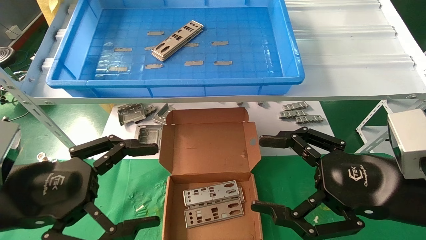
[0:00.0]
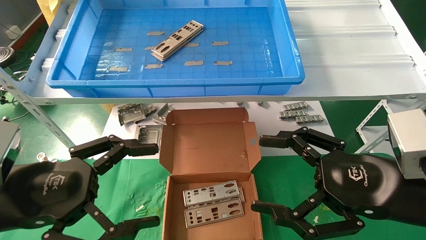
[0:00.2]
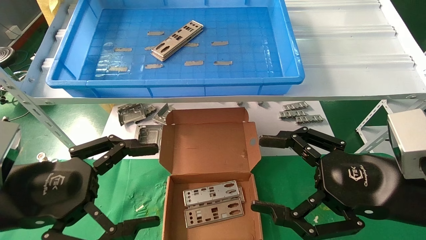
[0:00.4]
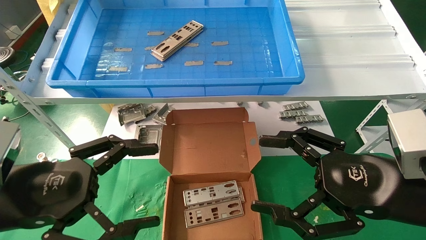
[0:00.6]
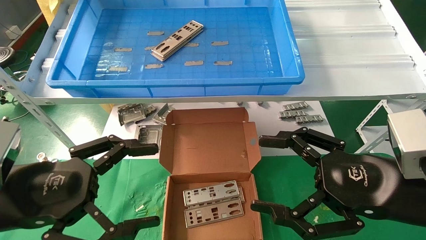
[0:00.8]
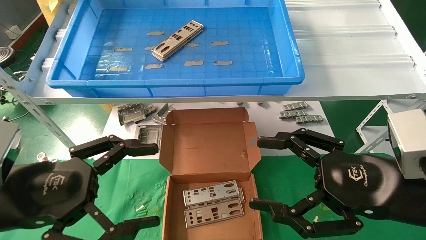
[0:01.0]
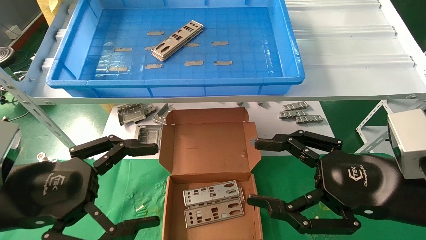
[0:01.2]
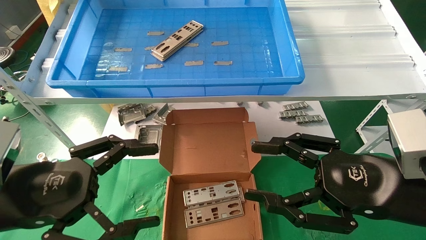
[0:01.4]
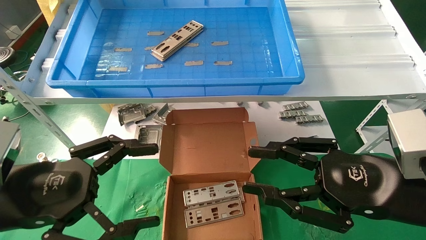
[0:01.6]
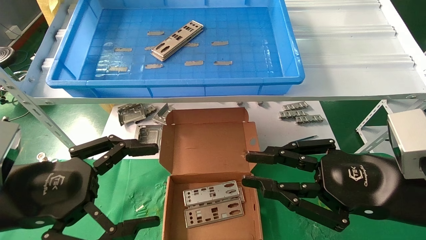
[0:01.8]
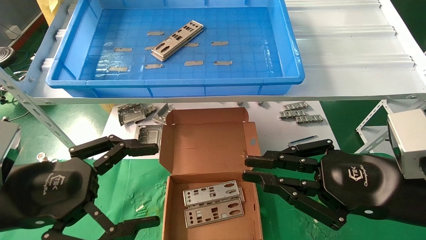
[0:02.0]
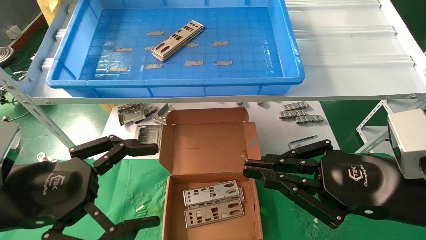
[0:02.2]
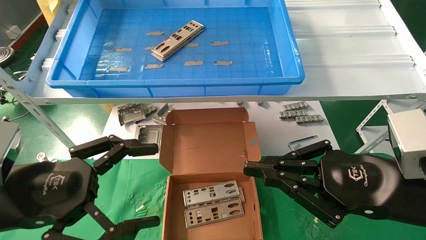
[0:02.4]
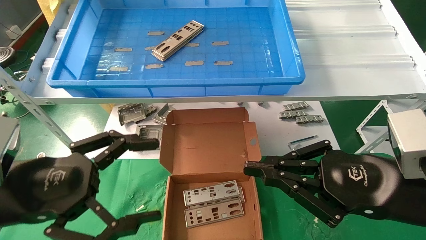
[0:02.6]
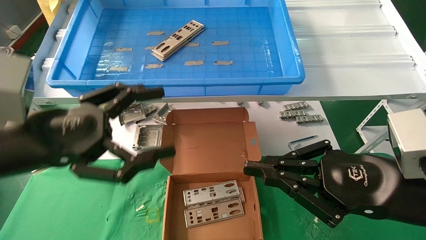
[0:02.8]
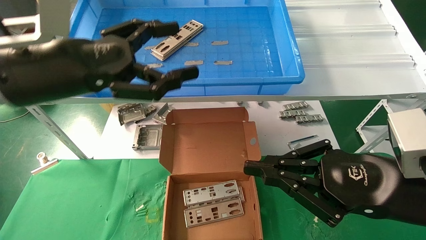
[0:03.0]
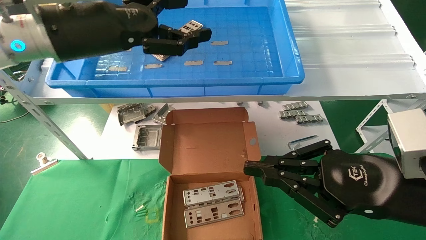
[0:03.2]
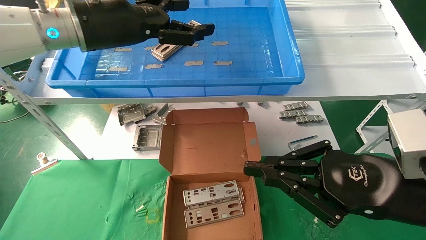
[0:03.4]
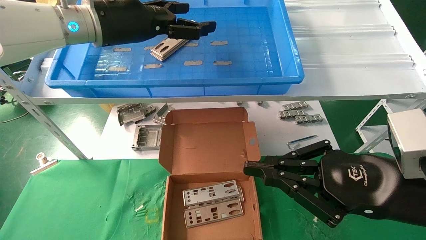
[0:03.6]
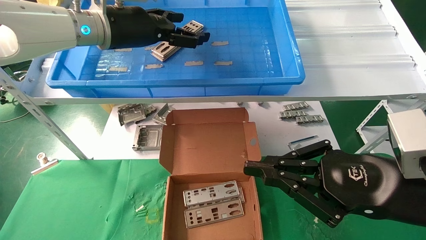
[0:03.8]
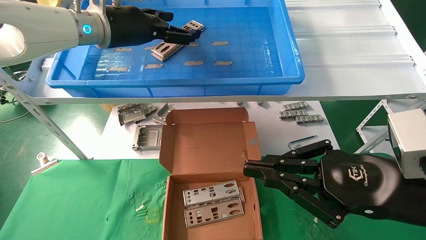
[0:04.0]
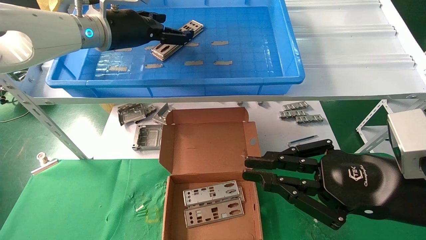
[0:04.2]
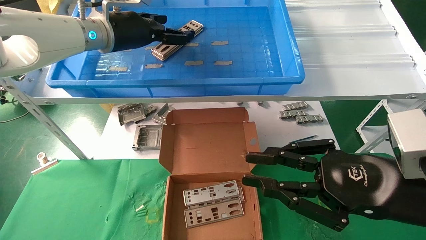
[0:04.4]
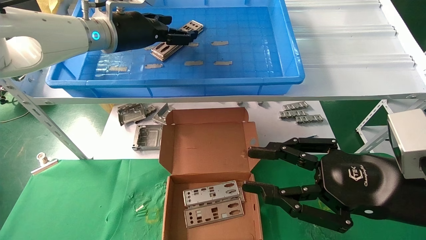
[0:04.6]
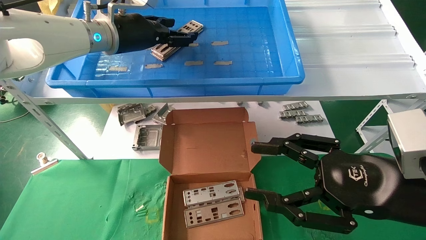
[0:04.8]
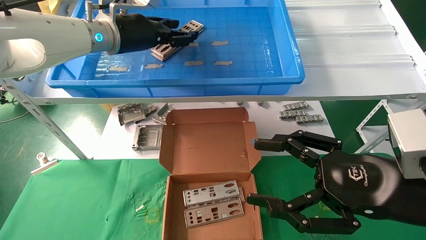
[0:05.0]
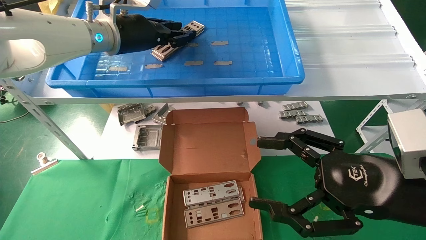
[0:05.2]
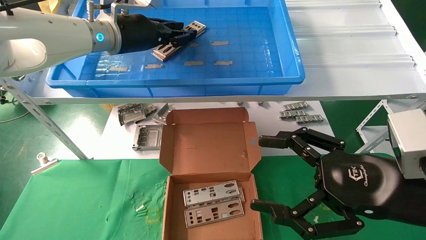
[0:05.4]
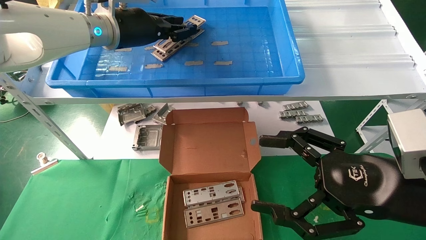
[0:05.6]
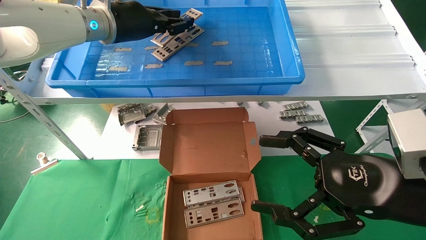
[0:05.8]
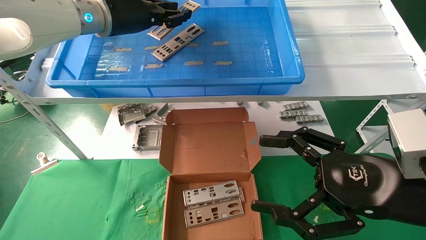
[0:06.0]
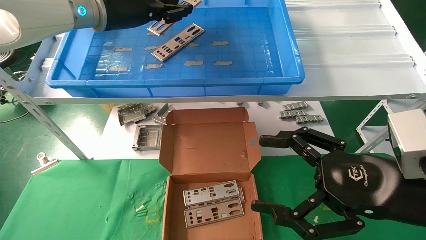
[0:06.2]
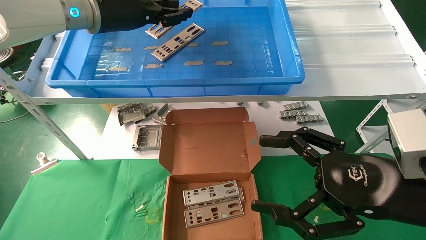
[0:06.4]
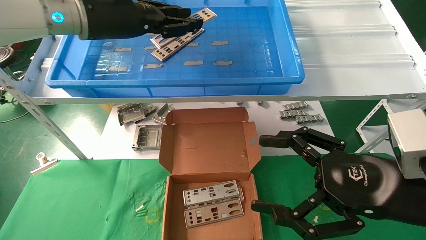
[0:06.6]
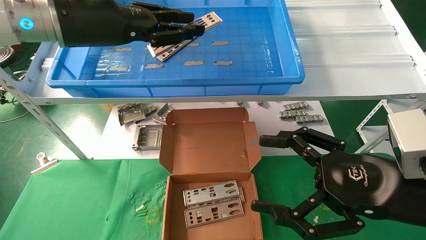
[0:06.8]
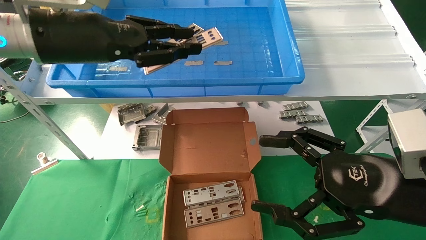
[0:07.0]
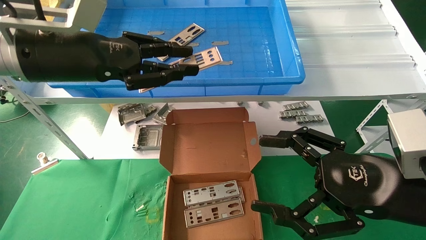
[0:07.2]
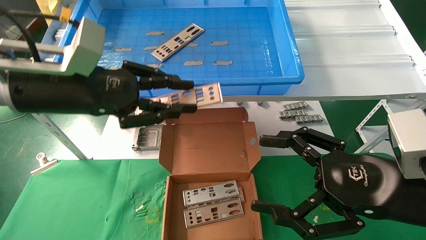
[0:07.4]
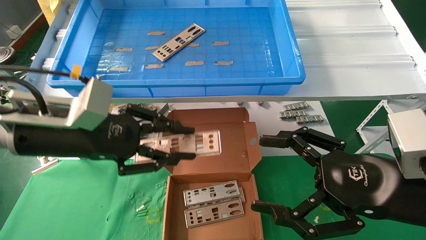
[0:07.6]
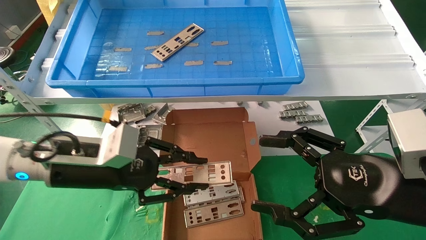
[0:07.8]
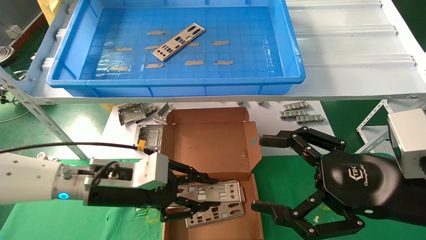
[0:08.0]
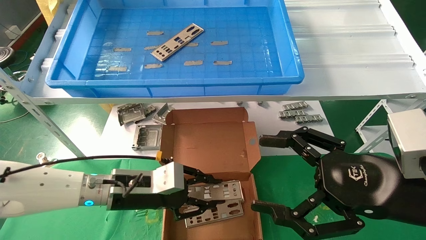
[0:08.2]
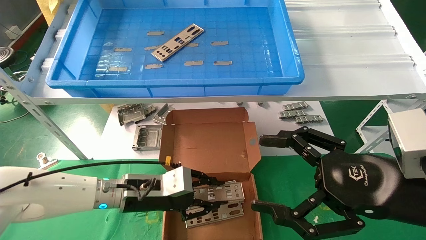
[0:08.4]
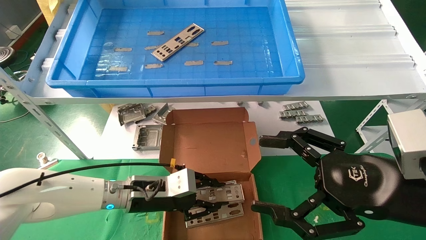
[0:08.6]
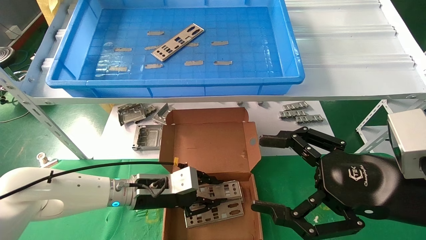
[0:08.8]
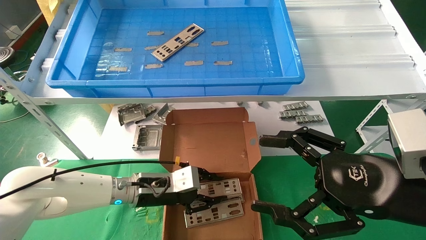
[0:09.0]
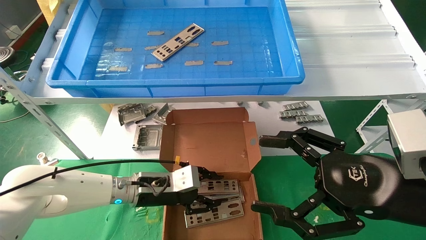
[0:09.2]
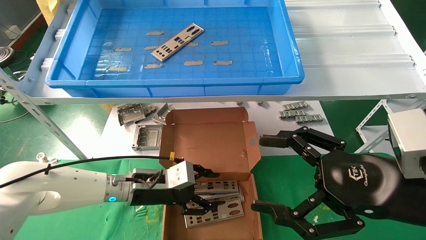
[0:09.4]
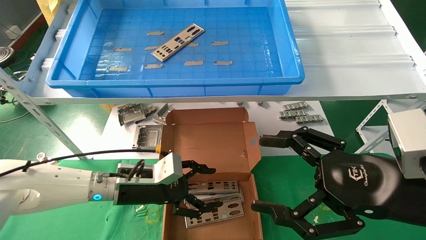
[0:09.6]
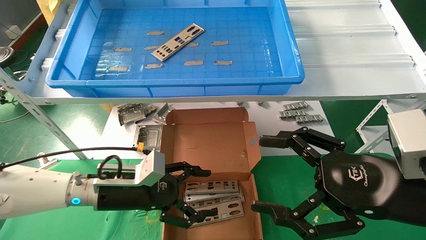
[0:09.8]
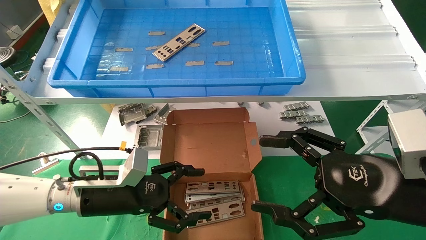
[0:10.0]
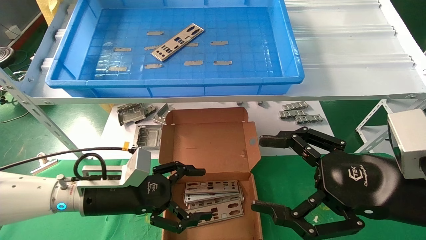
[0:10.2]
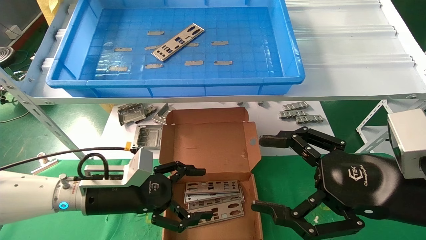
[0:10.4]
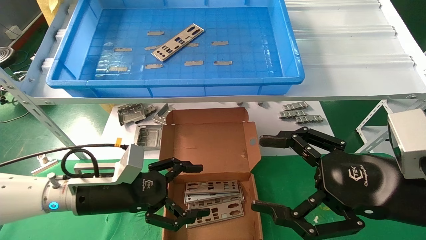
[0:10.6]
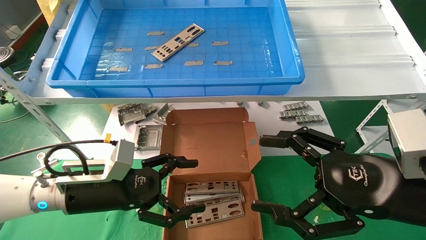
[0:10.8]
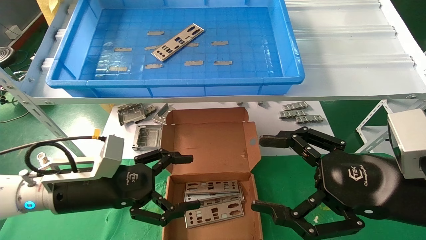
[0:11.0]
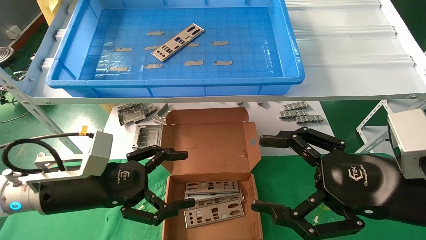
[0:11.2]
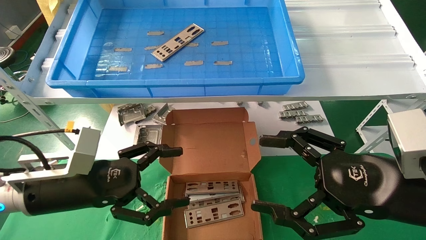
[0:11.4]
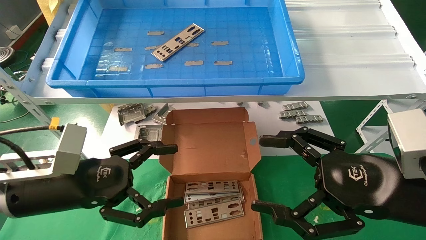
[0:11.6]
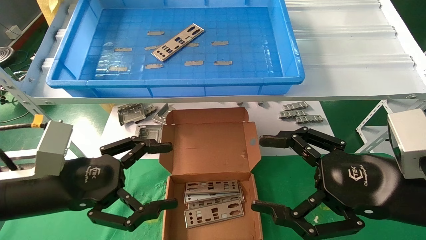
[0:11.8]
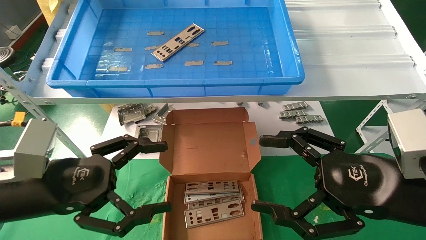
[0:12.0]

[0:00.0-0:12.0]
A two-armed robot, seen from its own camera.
Task of the whole recording: pick up the parts on the tray and put them in the cardboard box.
Step, 0:03.0 to 0:05.2: Pick up the IO bracket from the container box.
Step, 0:05.4 to 0:09.2: Place the IO bracket into the ingredient slot.
0:00.0 to 0:01.6: The right gripper closes.
0:01.6 to 0:03.0: The right gripper closes. The left gripper moves upward and forward, some 15 cm.
0:03.0 to 0:04.4: The left gripper goes approximately 15 cm forward and upward.
0:04.4 to 0:06.0: The right gripper opens. Meanwhile the left gripper closes.
0:06.0 to 0:07.6: The left gripper travels downward and backward by approximately 20 cm.
0:07.6 to 0:09.0: The left gripper travels downward, forward and to the right by some 20 cm.
0:09.0 to 0:10.4: The left gripper travels backward and to the left by approximately 10 cm, and opens.
0:10.4 to 0:12.0: The left gripper heads backward, upward and to the left, covering roughly 15 cm.

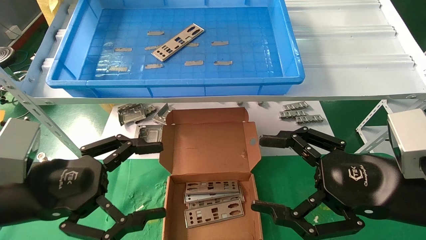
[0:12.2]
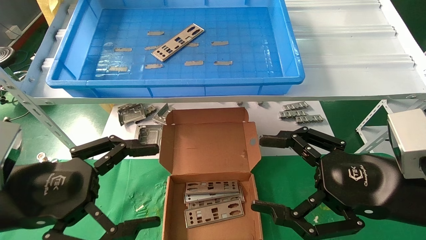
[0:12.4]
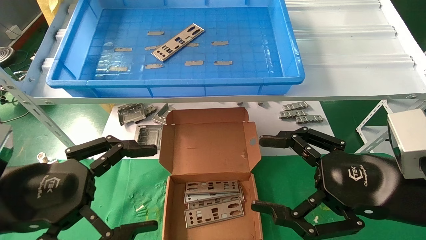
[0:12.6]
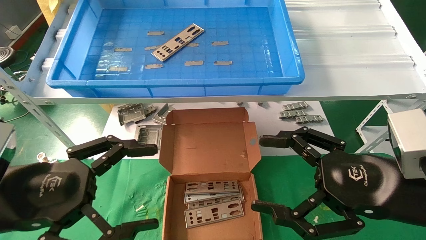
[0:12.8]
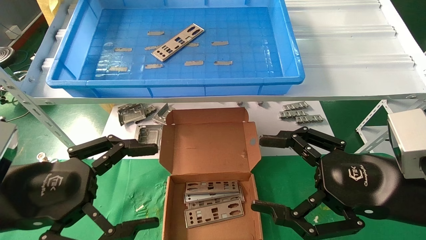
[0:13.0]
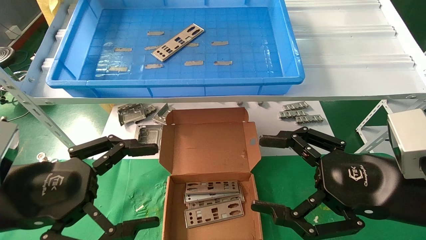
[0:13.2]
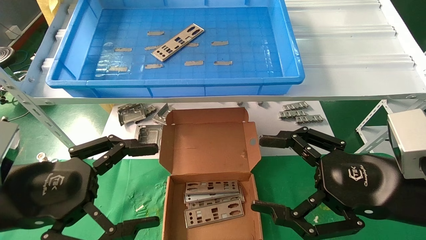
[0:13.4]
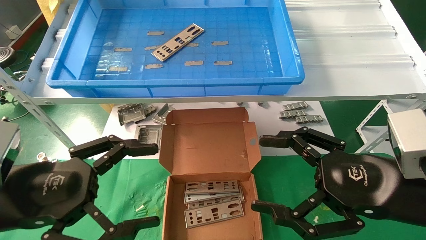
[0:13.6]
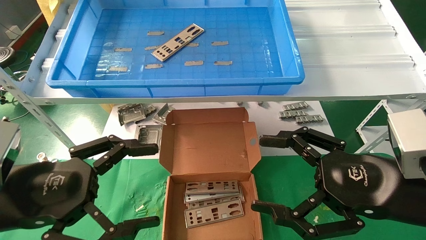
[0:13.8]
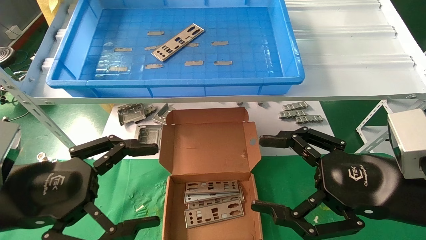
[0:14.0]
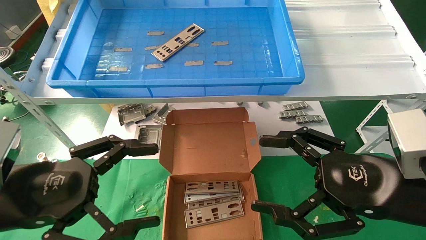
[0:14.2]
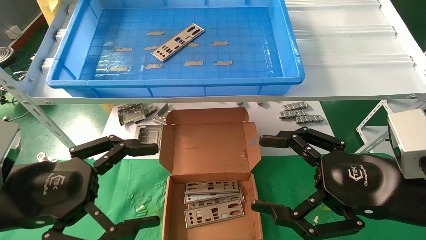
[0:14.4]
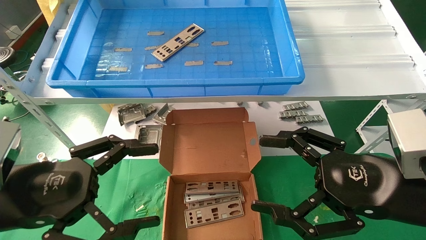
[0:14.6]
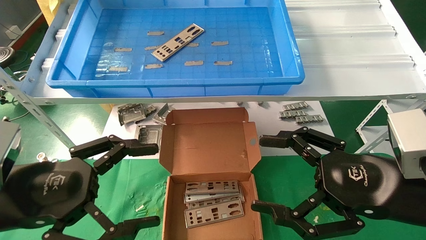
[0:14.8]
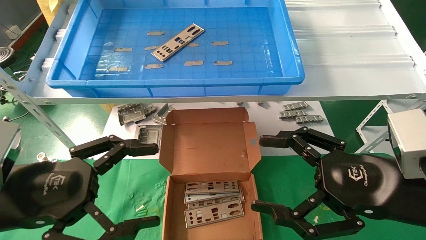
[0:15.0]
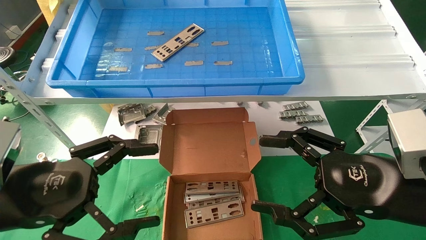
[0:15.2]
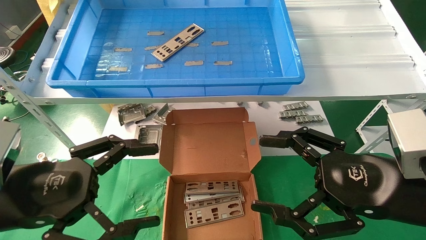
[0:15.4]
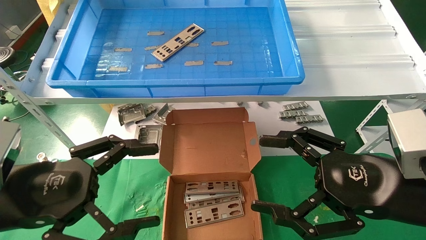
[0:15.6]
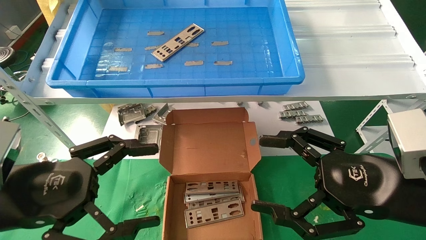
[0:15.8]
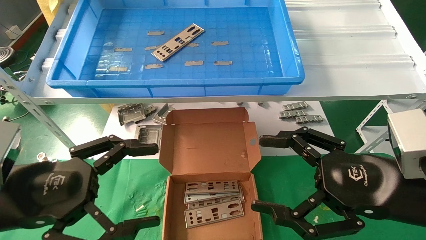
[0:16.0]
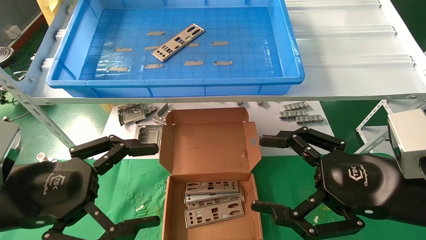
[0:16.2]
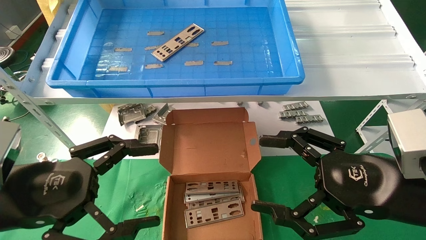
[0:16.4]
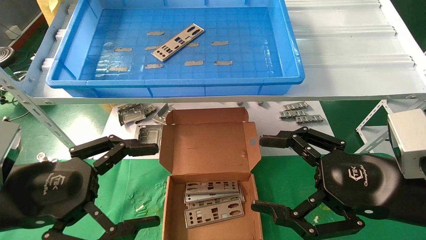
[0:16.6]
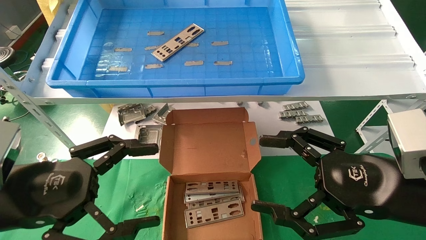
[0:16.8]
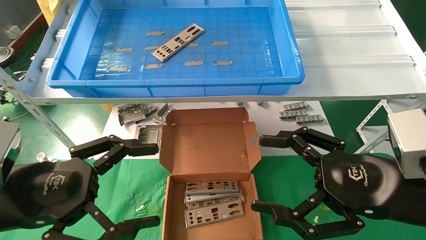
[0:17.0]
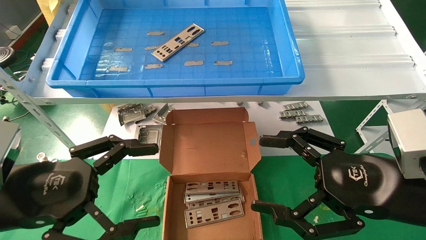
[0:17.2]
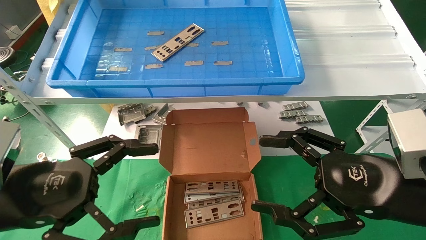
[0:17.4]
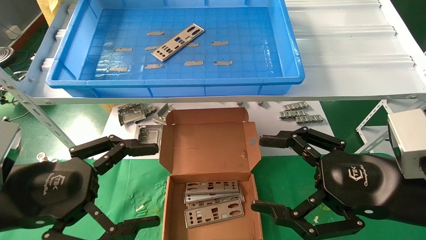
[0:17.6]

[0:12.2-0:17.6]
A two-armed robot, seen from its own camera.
Task of the whole recording: pick up the parts on the tray and put them in the cardboard box.
0:12.2 to 0:13.6: The grippers make only small movements.
0:13.6 to 0:17.6: The two grippers keep their place.
